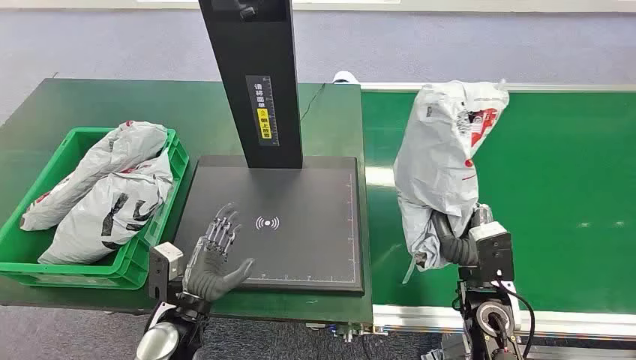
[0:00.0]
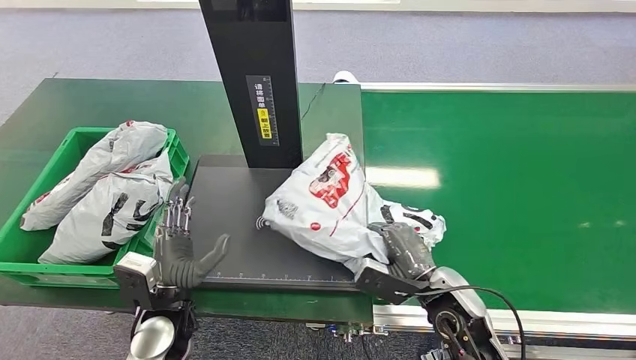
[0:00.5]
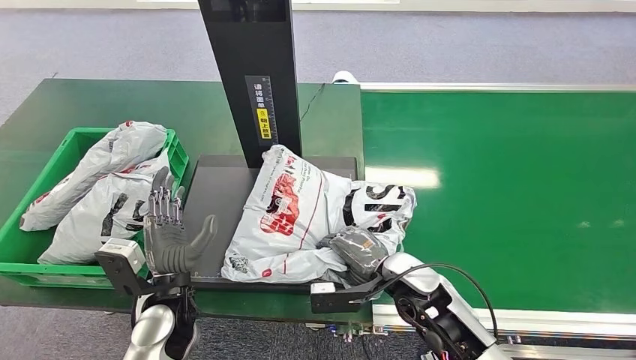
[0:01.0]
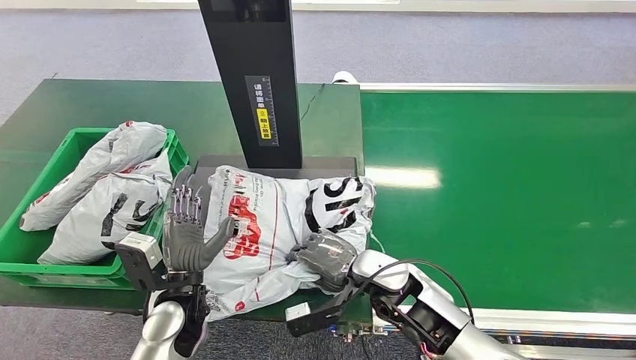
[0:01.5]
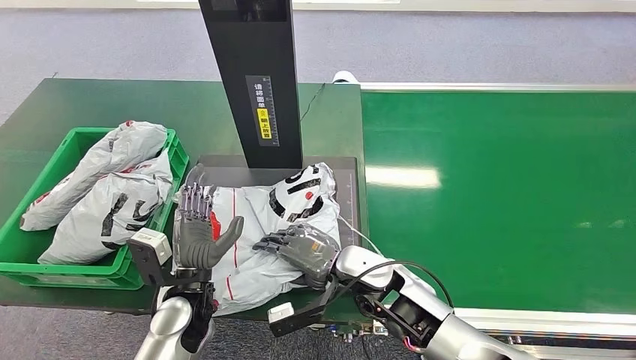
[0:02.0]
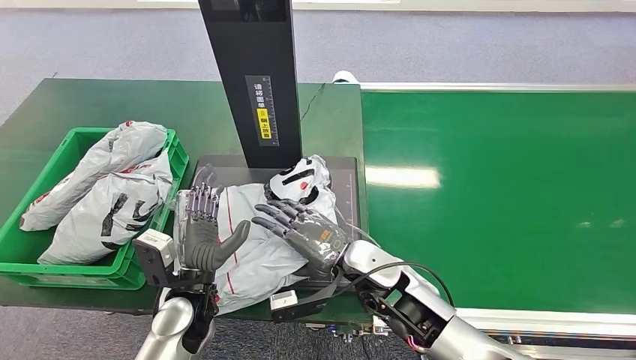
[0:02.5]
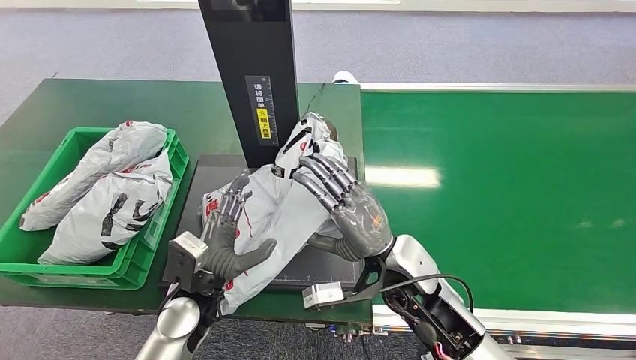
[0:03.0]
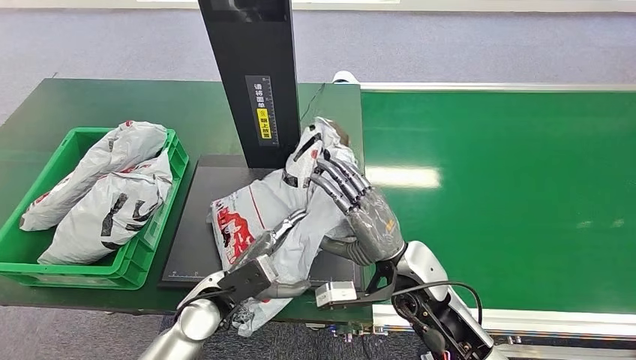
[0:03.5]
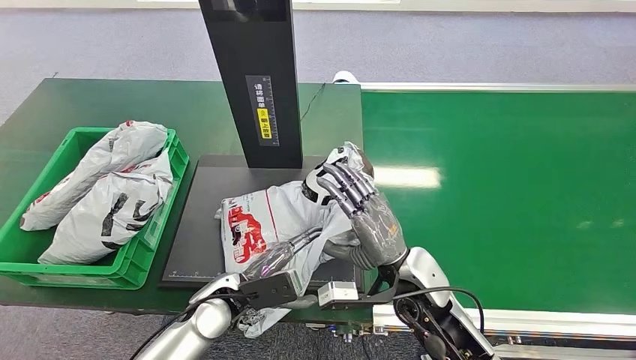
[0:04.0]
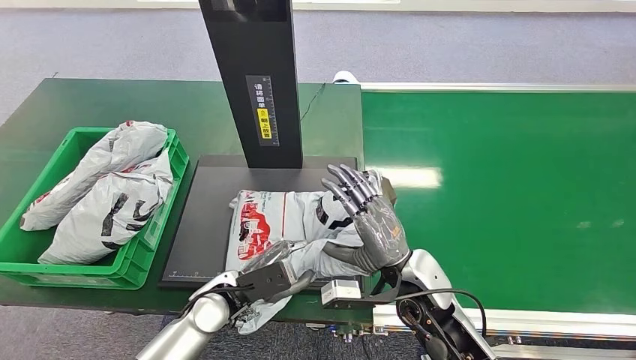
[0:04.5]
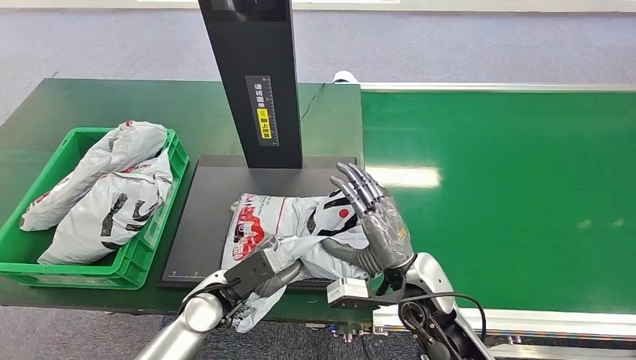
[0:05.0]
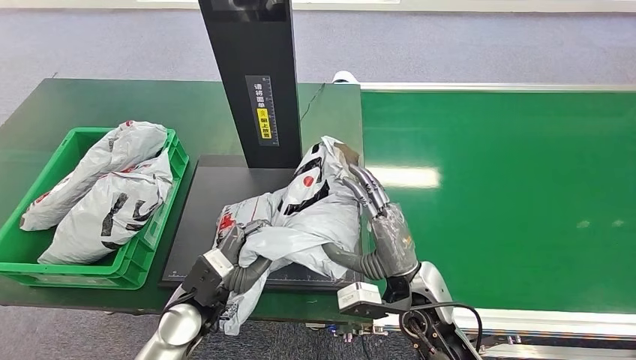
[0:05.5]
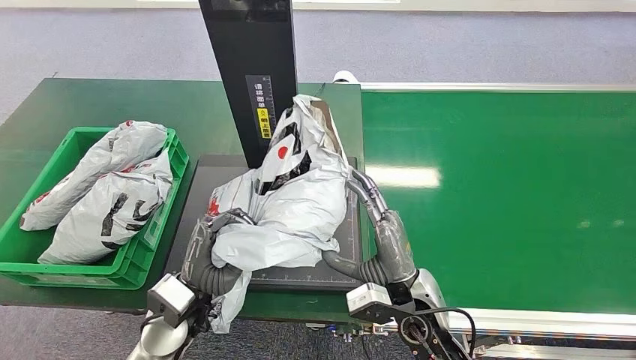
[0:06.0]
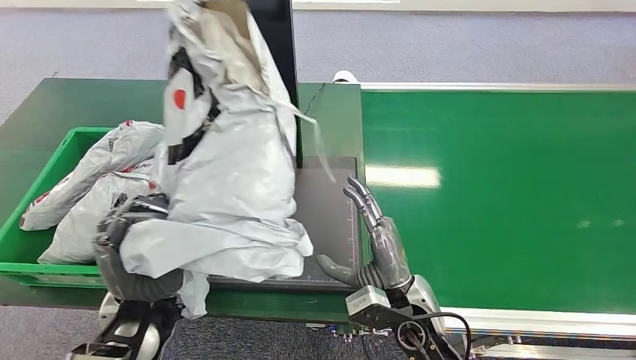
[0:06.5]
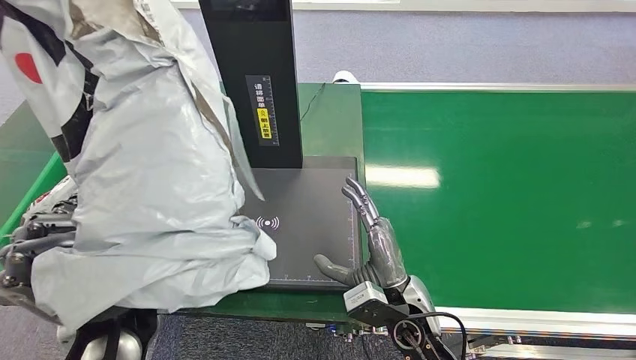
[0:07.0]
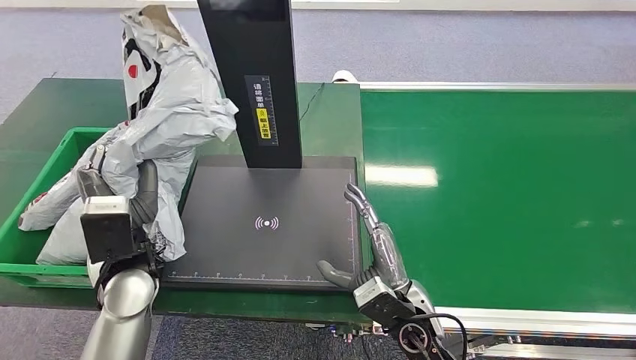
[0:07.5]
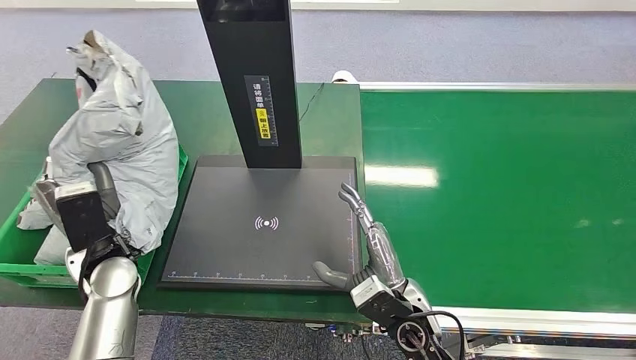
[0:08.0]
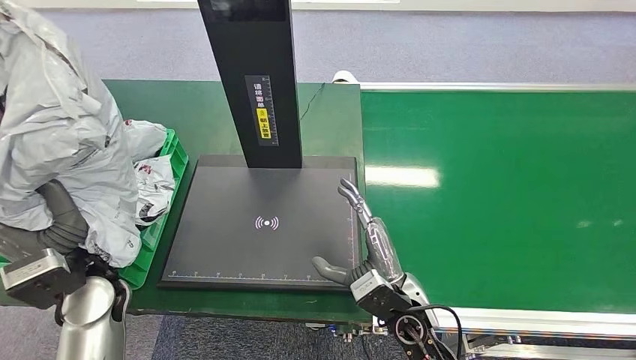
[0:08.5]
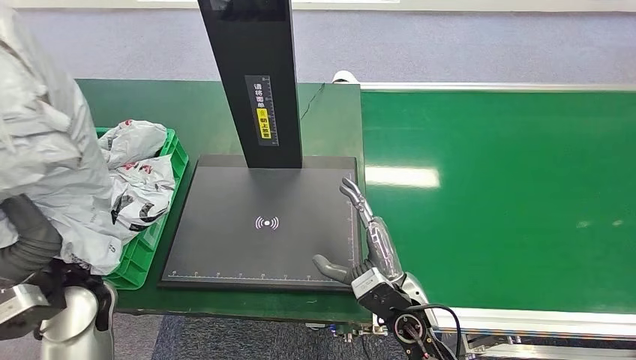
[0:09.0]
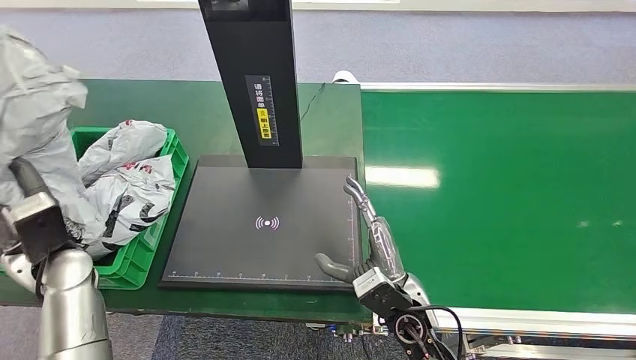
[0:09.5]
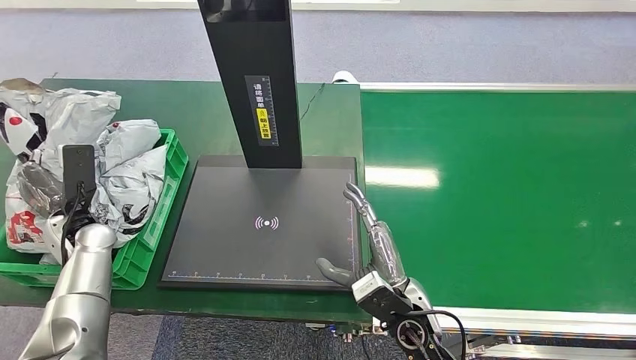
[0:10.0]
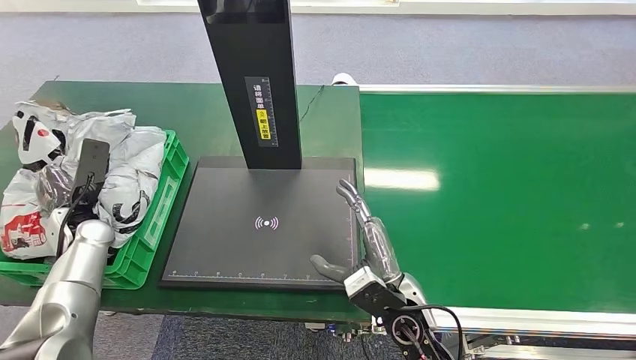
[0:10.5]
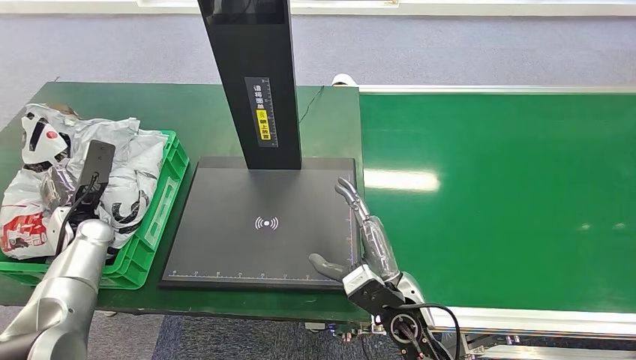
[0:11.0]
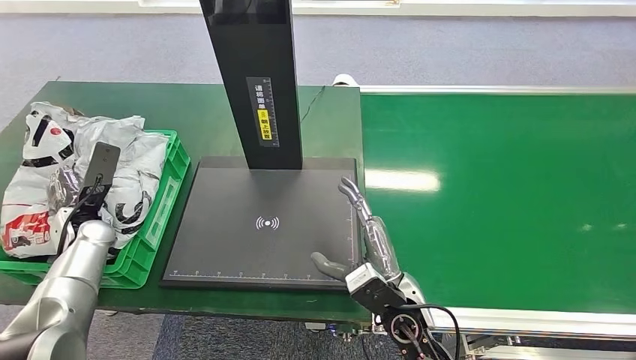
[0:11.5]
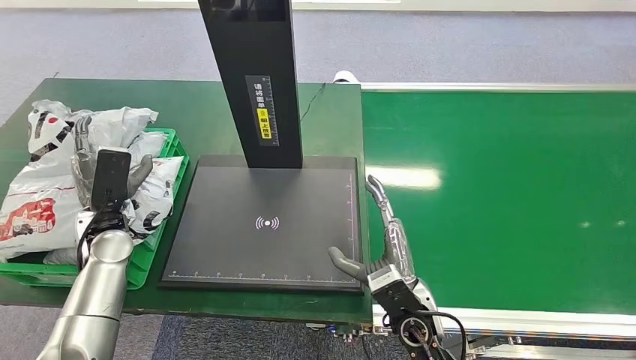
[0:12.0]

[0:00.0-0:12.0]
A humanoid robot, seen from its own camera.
0:02.0 to 0:04.0: The right hand shifts some 5 cm to the right.
0:04.0 to 0:06.0: The left hand heads upward, covering roughly 5 cm.
0:08.0 to 0:10.0: The left hand shifts roughly 10 cm to the left and forward.
0:10.0 to 0:12.0: The left hand goes roughly 5 cm to the right.
